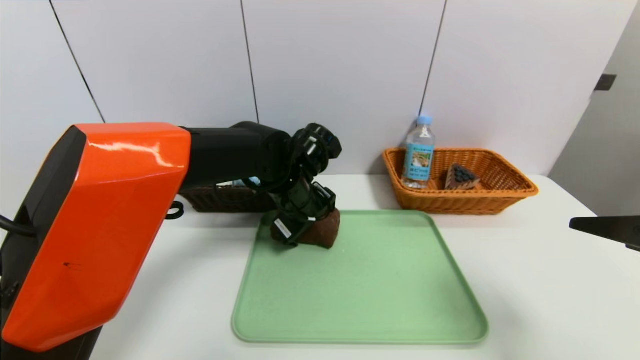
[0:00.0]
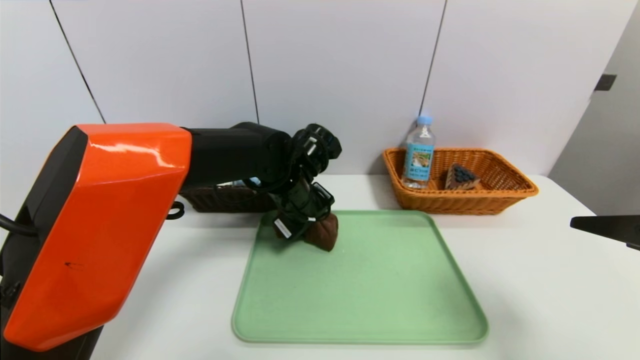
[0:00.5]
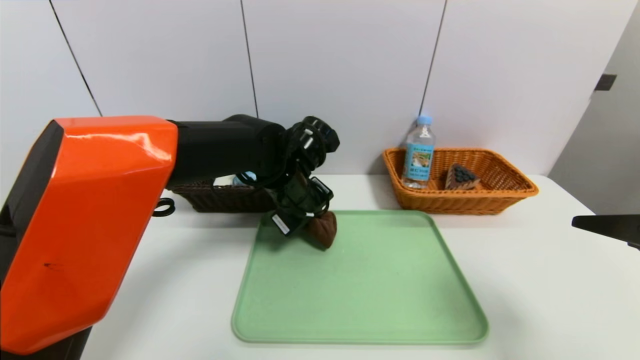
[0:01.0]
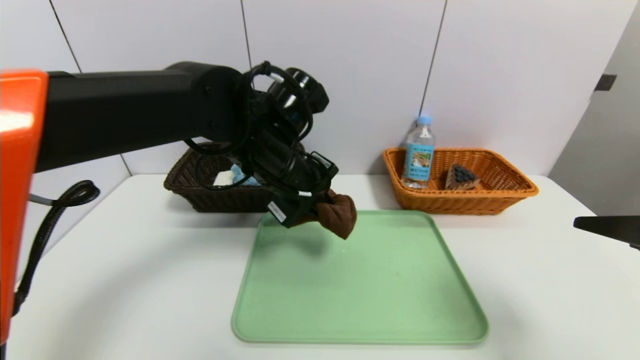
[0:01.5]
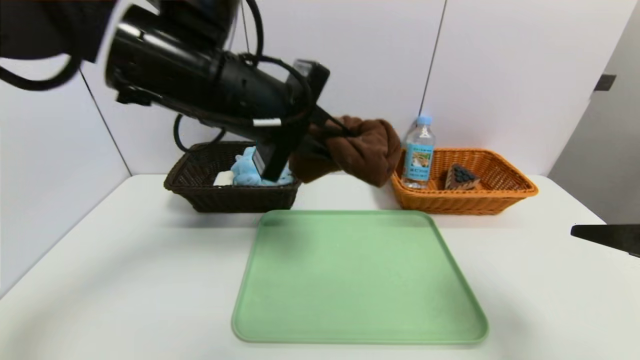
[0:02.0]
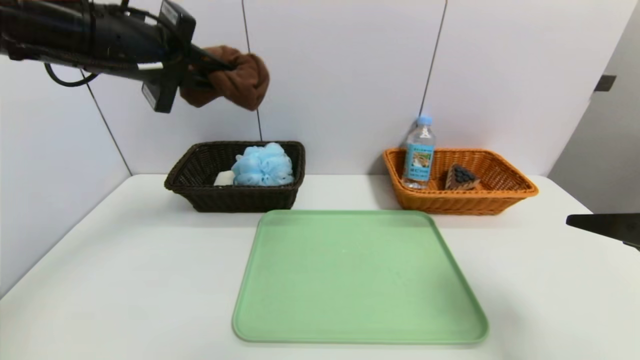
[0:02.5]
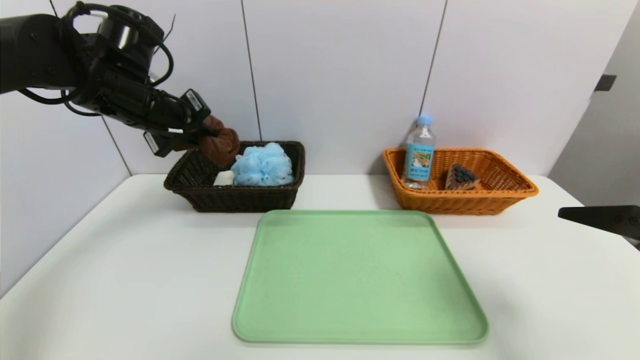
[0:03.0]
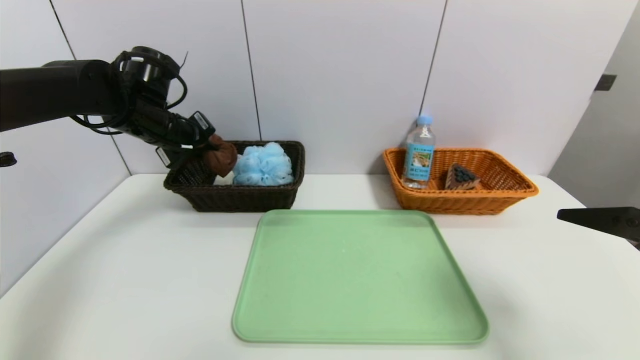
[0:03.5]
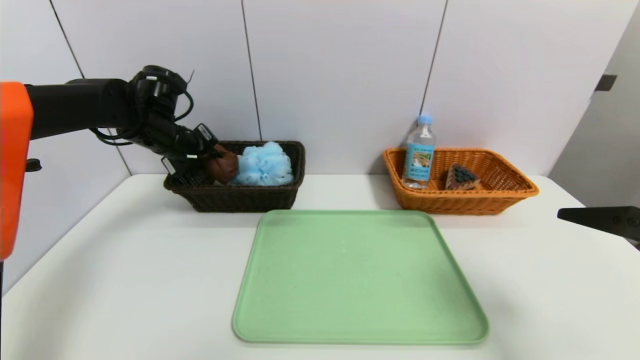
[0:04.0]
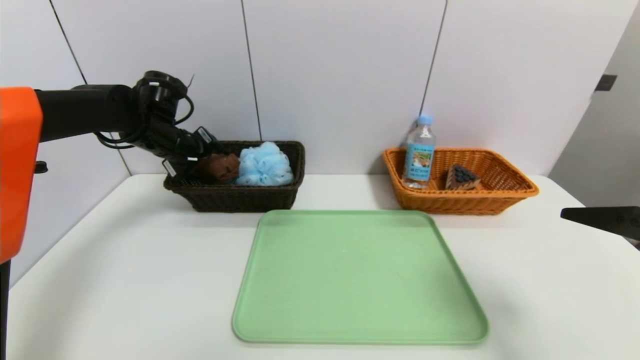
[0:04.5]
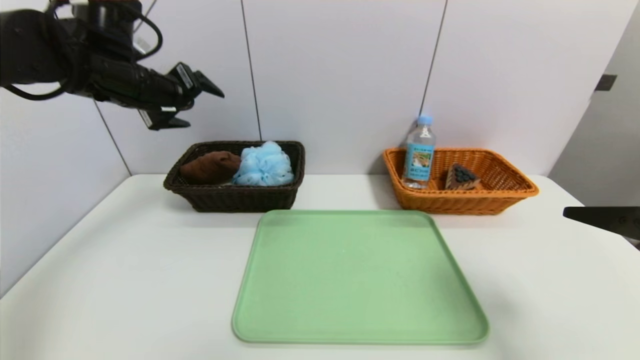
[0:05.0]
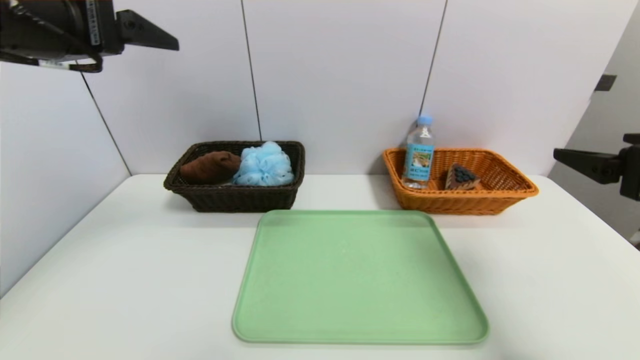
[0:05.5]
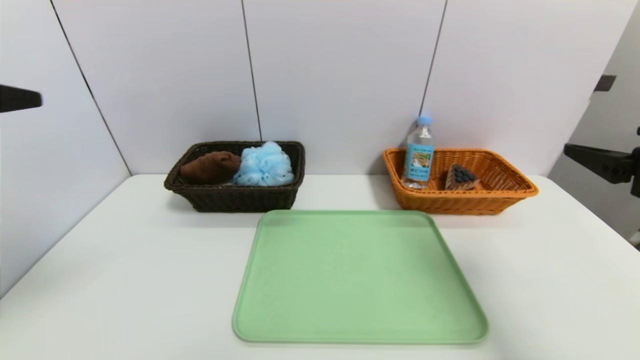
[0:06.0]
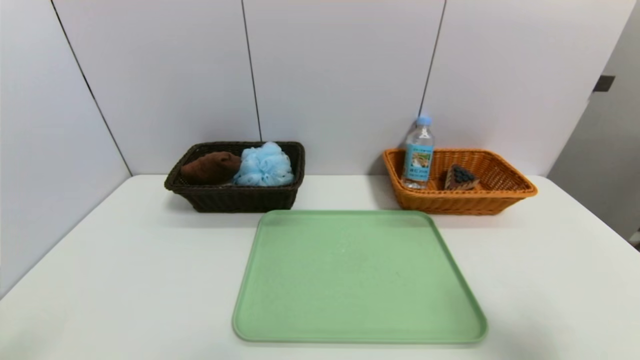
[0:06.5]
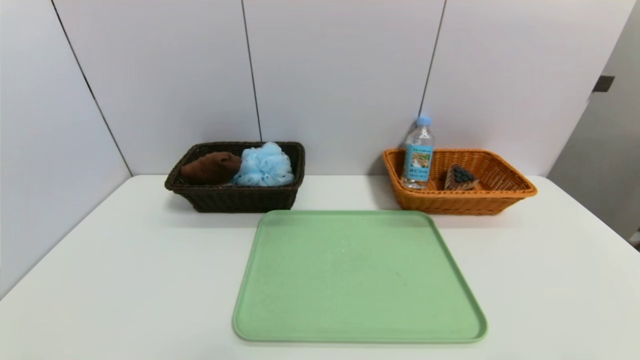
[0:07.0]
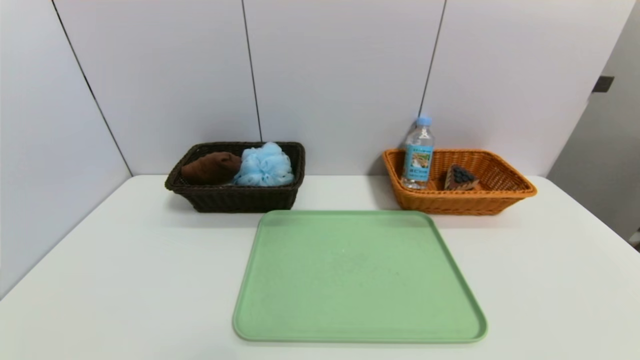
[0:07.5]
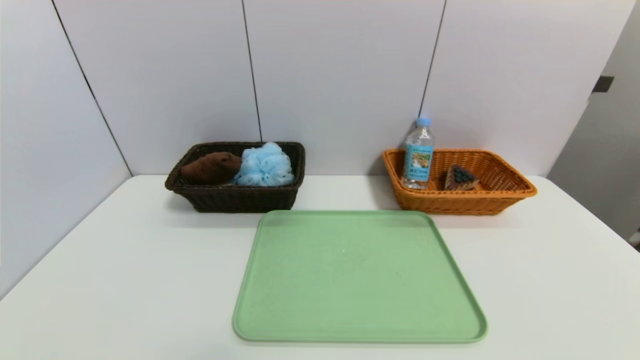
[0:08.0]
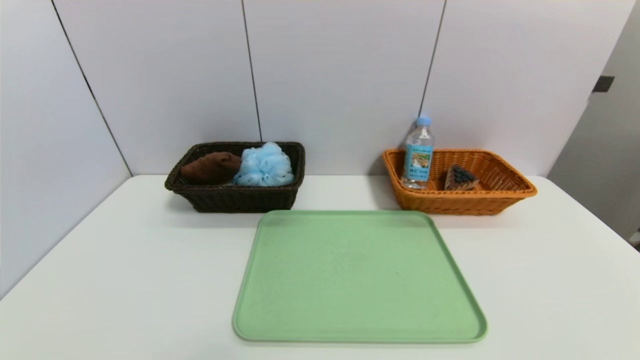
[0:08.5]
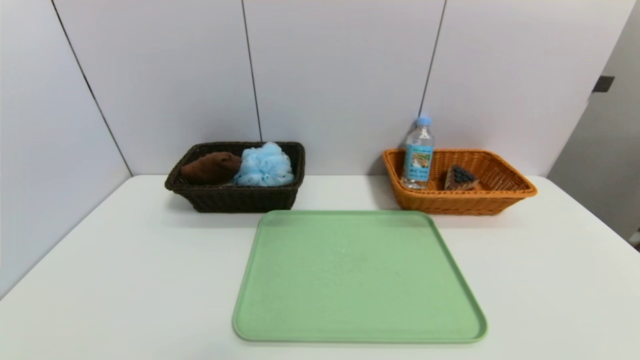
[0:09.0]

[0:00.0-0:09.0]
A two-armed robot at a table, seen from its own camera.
Task of the whole recording: place the food in the right basket with the right gripper, and place the non food items in the left basket with the left gripper.
Step, 0:00.0 to 0:04.5: Grasp the brown towel and put it in the left basket.
0:00.0 to 0:02.0: The left gripper goes about 20 cm upward and backward, and closes.
0:02.0 to 0:04.5: The left gripper goes approximately 30 cm forward, to the left and downward, and opens its fingers.
0:04.5 to 0:07.0: The right gripper shifts some 15 cm backward and downward. Meanwhile the left gripper moves backward, roughly 50 cm.
